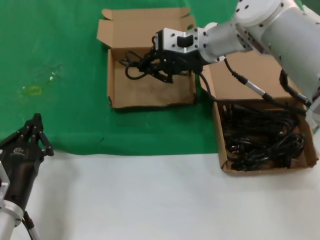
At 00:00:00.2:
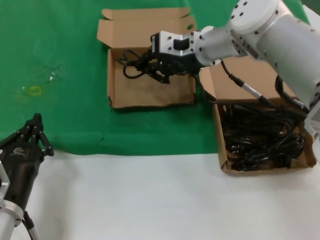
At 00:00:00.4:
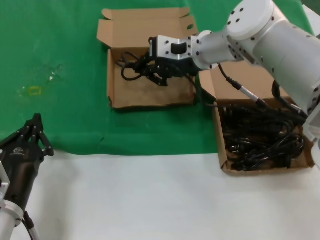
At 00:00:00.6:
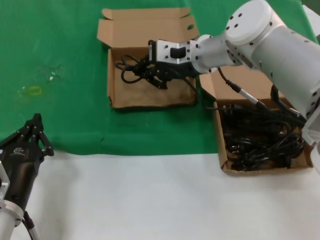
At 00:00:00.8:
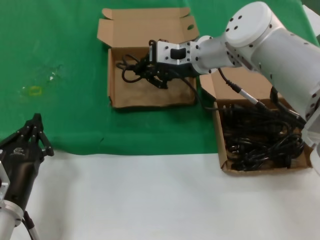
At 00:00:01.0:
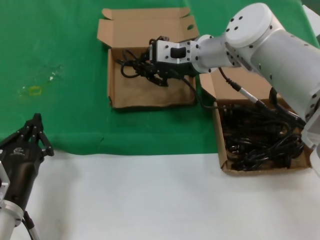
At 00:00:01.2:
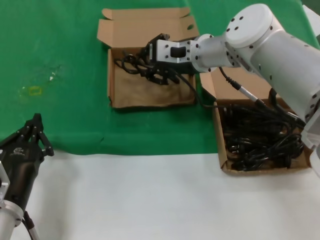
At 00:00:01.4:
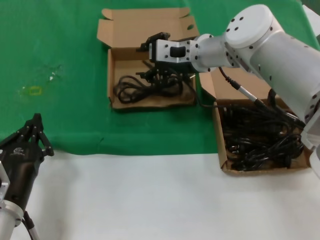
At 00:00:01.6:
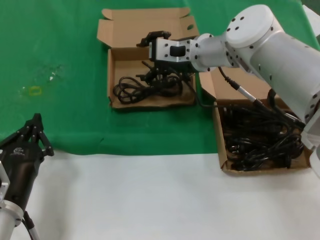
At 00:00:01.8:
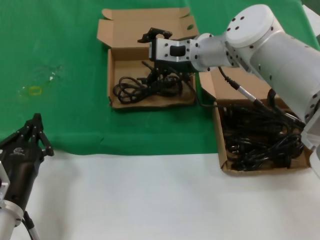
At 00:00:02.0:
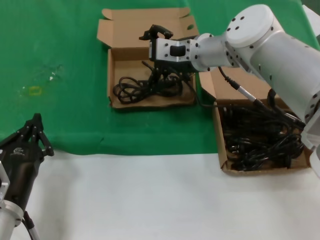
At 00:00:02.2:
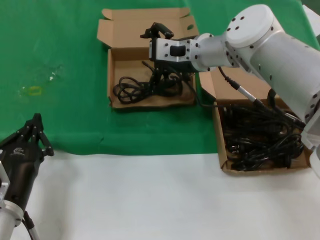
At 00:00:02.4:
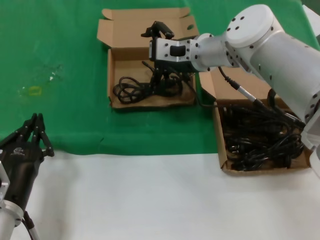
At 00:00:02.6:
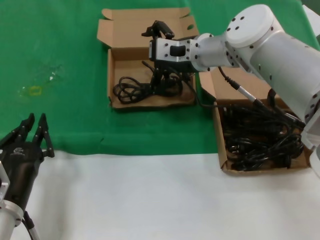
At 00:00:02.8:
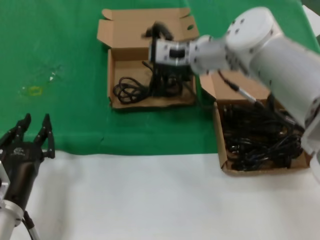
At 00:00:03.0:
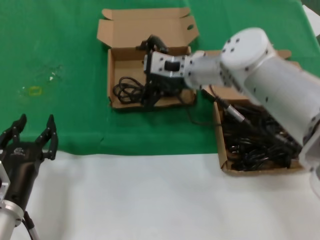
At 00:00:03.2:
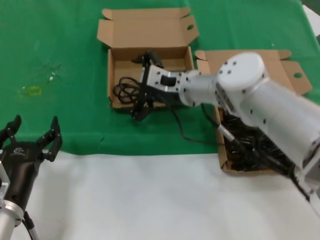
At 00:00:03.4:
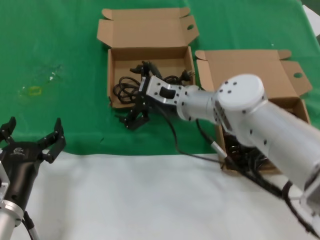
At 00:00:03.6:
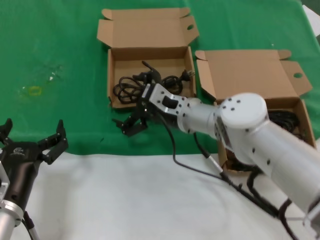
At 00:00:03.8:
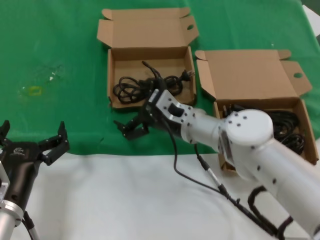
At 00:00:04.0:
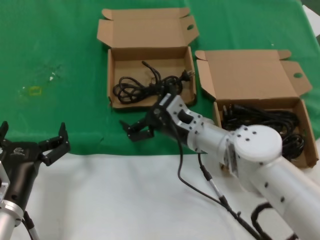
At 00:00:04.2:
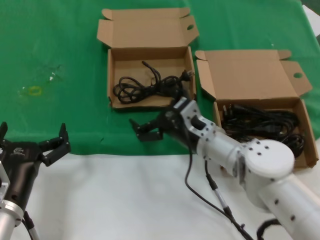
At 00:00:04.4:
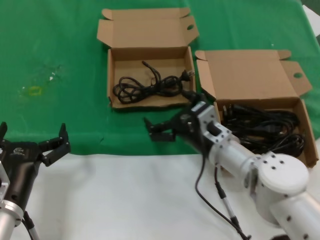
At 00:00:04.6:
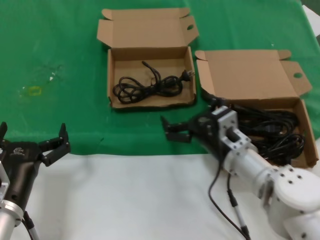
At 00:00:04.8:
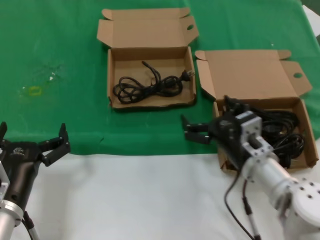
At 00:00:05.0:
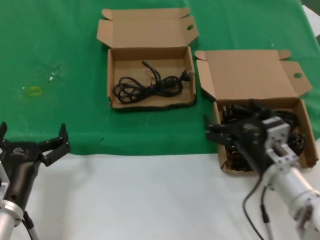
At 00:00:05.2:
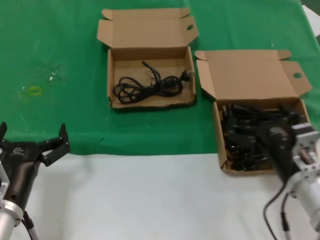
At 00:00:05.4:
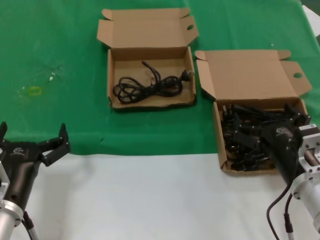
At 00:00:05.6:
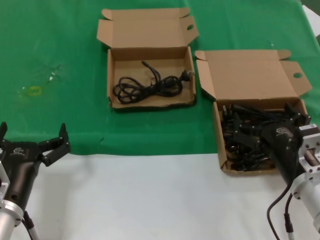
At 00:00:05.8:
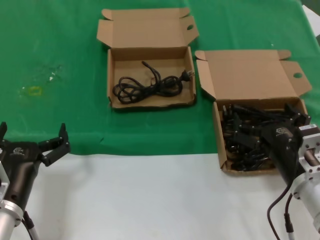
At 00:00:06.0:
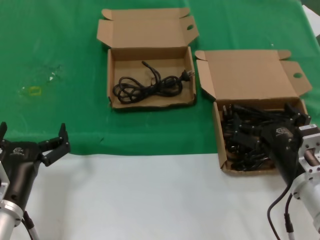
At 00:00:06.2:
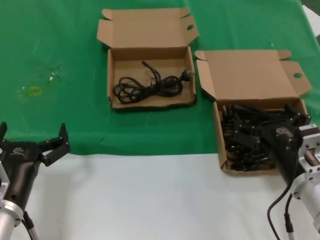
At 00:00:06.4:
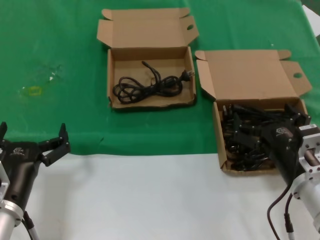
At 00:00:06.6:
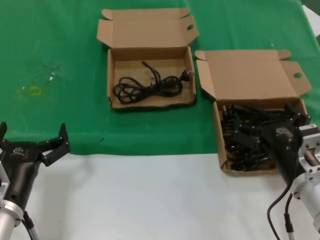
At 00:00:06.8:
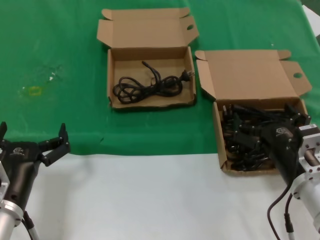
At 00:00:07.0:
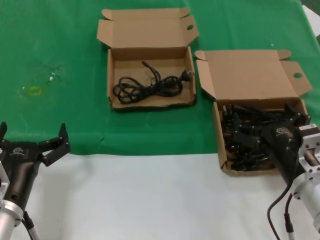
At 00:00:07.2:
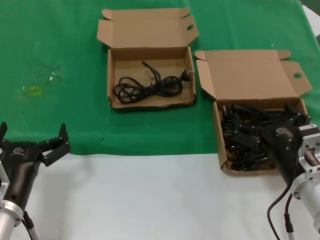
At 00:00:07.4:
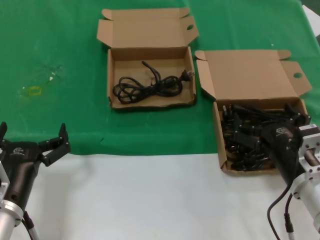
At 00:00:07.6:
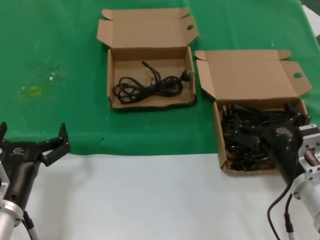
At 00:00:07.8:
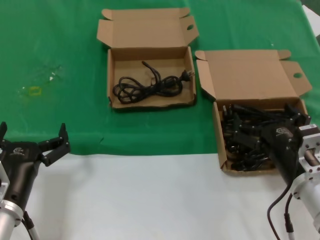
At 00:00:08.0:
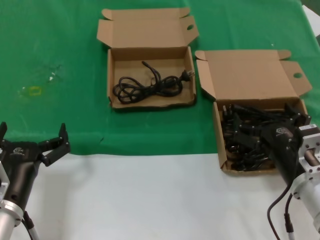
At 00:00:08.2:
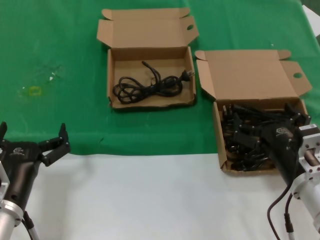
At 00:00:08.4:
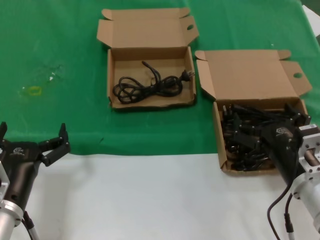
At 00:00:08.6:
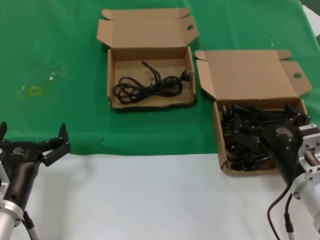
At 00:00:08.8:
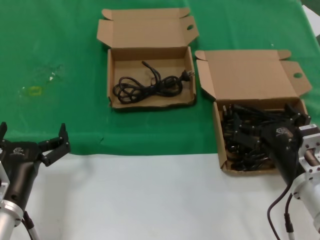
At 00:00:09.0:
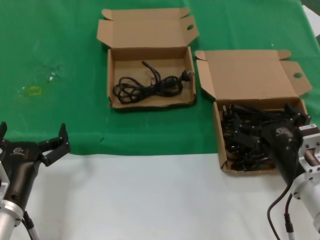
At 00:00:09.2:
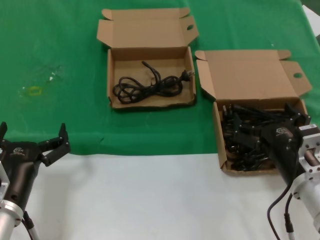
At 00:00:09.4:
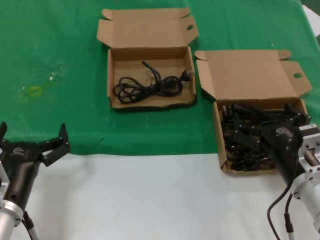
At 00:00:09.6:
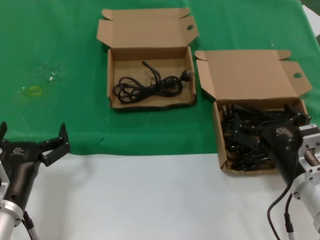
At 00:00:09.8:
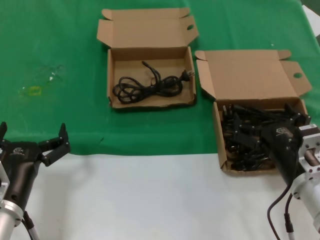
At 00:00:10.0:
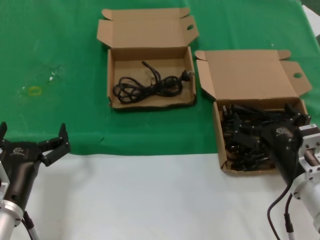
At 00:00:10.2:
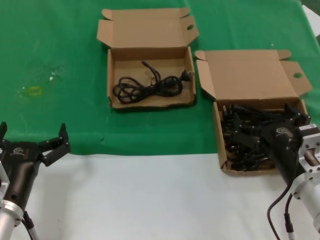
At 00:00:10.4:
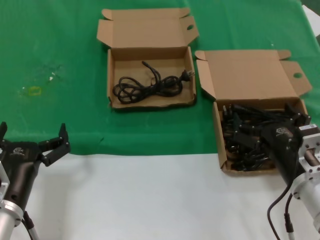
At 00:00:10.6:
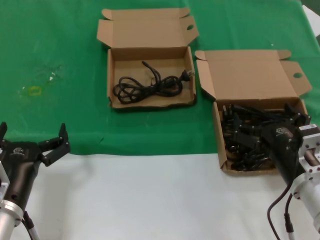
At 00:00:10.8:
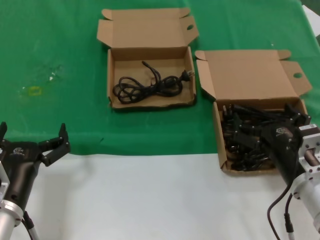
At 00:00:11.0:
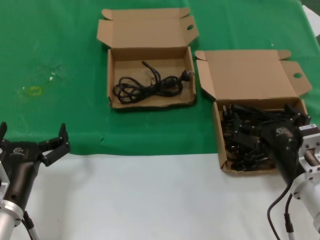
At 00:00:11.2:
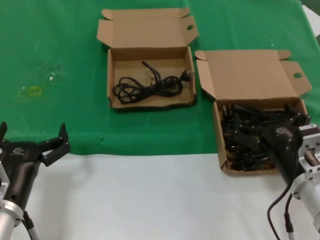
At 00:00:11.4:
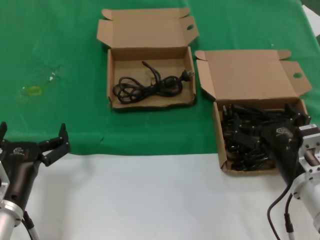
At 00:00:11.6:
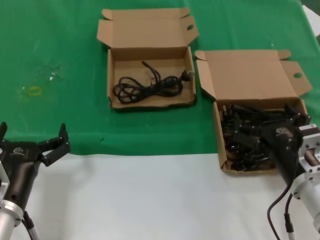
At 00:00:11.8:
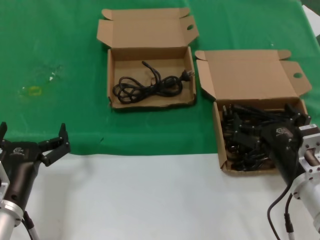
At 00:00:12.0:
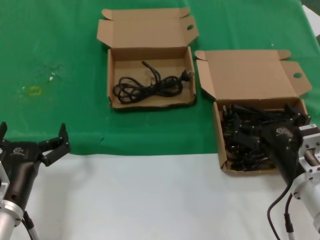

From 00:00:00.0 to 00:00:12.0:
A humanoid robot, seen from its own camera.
Task of the whole recording: take the parts from the box containing them and put them into an empty box.
From 00:00:00.0 to 00:00:01.6: There are only small adjustments of the hands.
From 00:00:01.6 to 00:00:03.0: The hands make only small movements.
From 00:00:03.0 to 00:00:04.4: The right hand goes approximately 20 cm downward and backward.
From 00:00:04.4 to 00:00:06.0: The right hand shifts about 15 cm to the right and backward.
From 00:00:06.0 to 00:00:12.0: Both hands stay about where they are.
